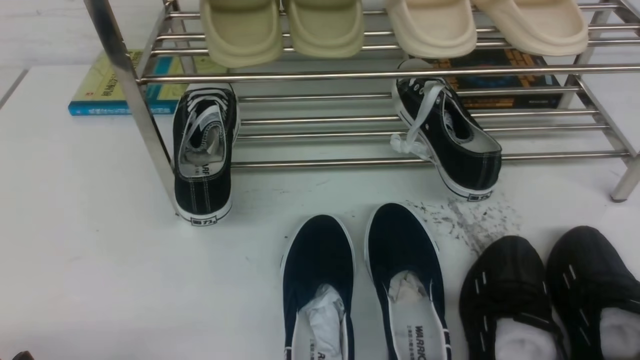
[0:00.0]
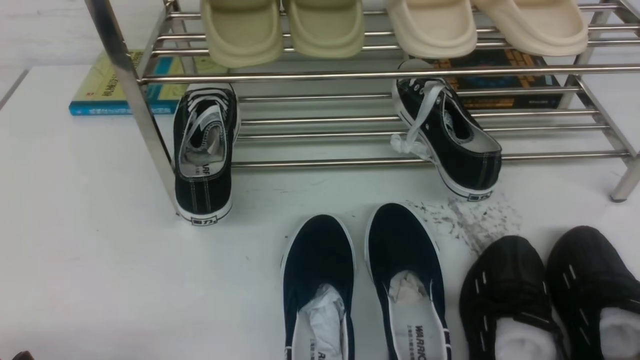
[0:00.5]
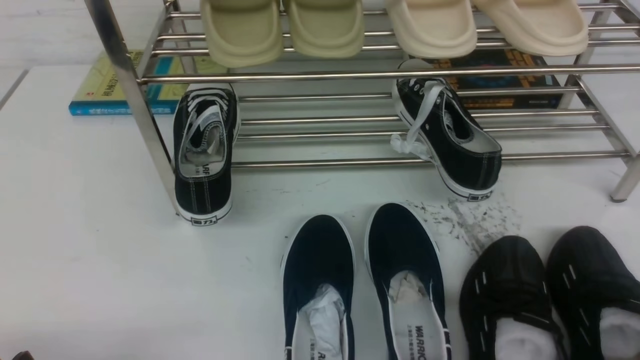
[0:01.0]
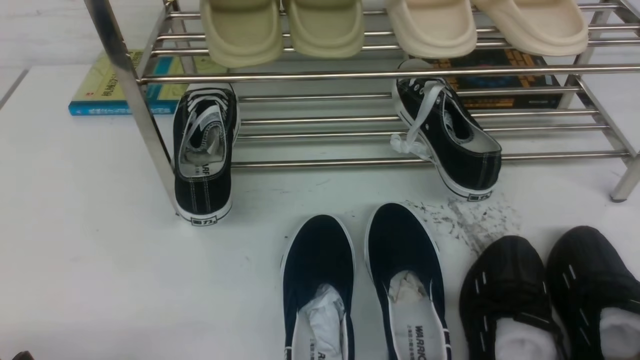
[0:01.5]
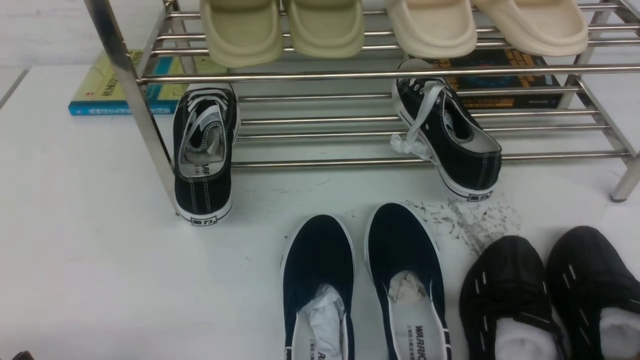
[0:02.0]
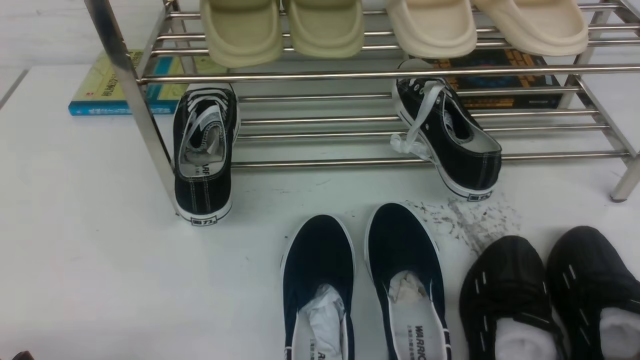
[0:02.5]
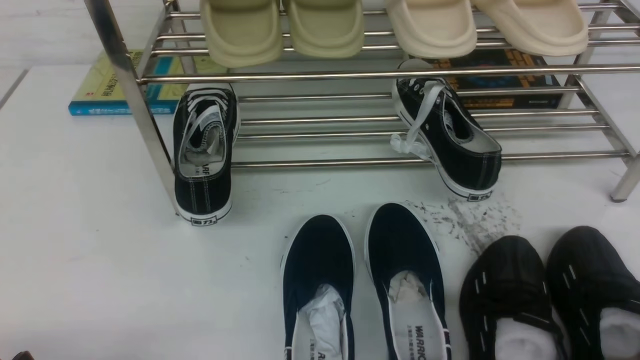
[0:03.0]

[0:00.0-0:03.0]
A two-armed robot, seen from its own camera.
0:01.5 to 0:03.0: The two grippers keep their place.
